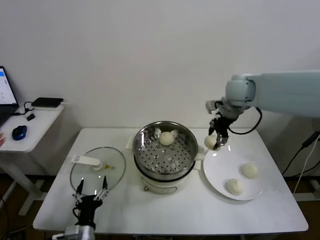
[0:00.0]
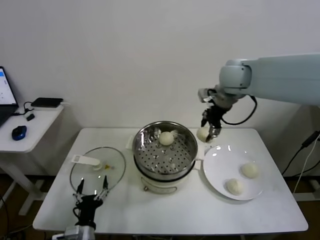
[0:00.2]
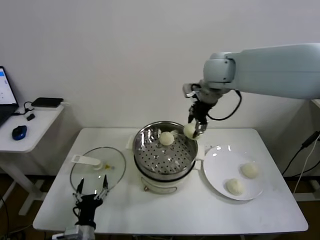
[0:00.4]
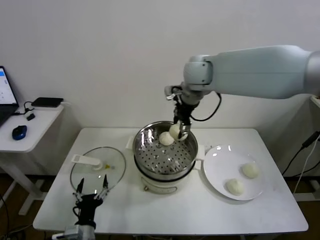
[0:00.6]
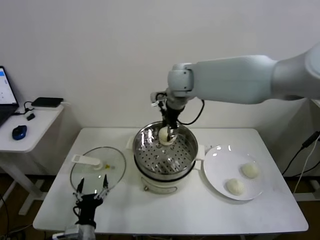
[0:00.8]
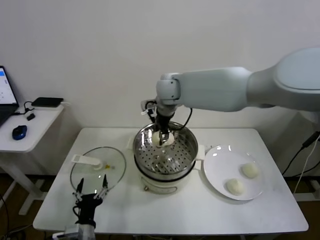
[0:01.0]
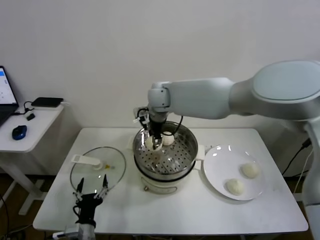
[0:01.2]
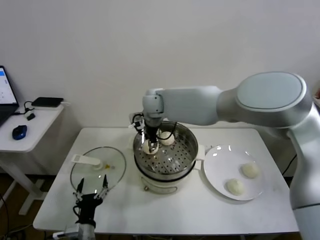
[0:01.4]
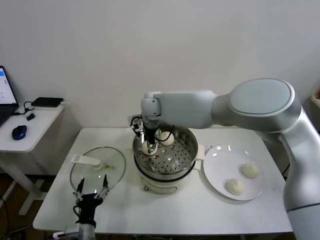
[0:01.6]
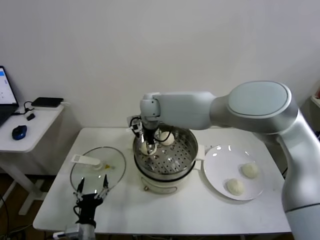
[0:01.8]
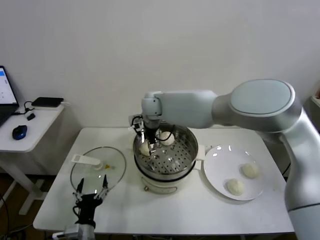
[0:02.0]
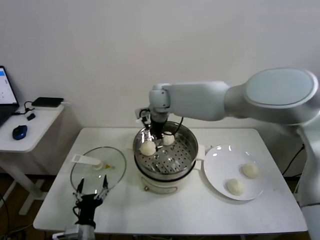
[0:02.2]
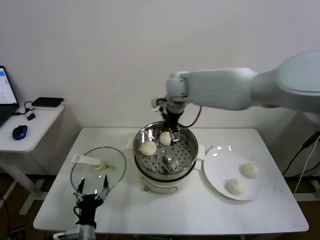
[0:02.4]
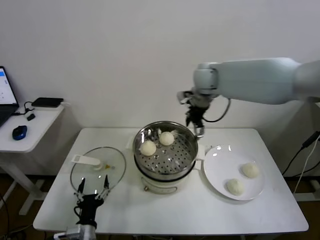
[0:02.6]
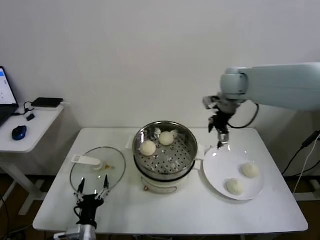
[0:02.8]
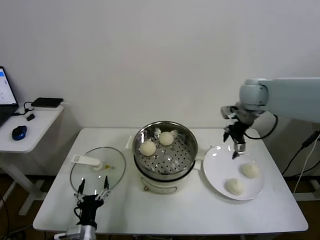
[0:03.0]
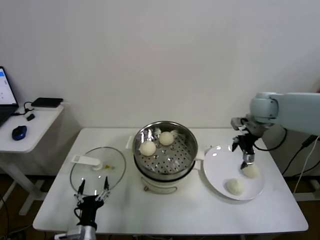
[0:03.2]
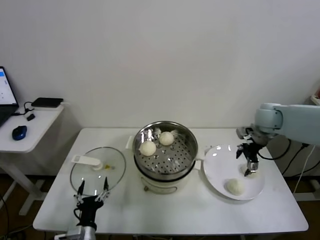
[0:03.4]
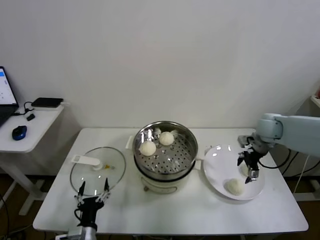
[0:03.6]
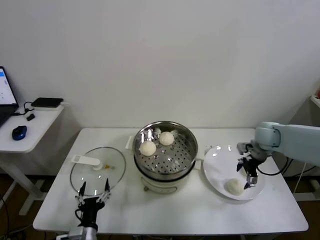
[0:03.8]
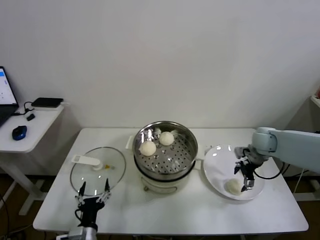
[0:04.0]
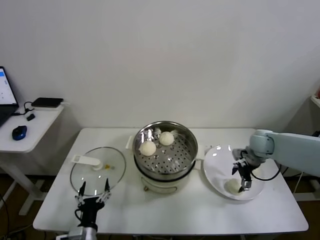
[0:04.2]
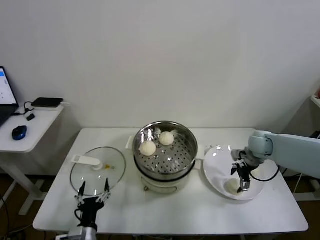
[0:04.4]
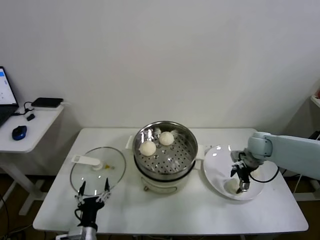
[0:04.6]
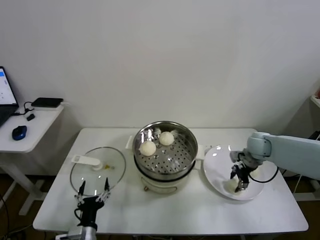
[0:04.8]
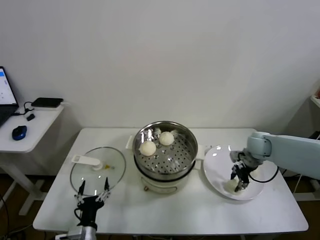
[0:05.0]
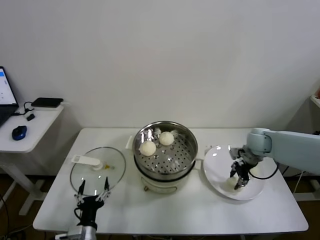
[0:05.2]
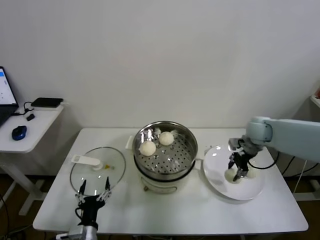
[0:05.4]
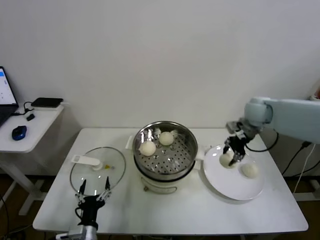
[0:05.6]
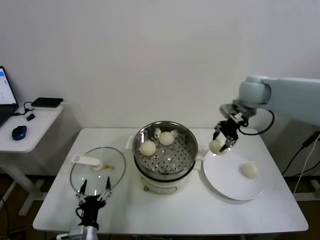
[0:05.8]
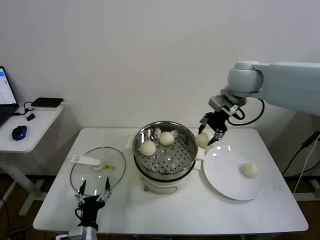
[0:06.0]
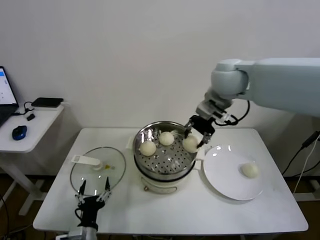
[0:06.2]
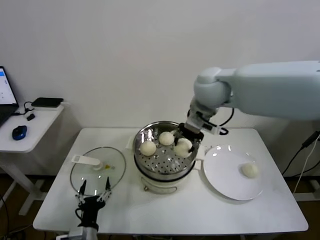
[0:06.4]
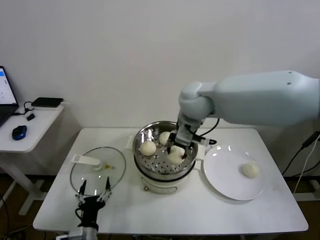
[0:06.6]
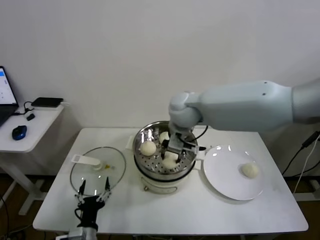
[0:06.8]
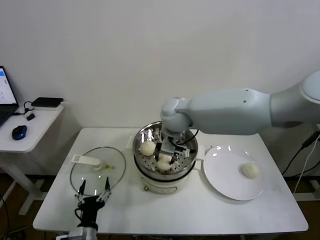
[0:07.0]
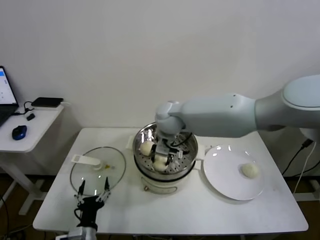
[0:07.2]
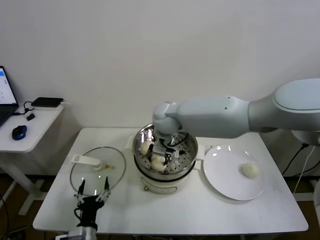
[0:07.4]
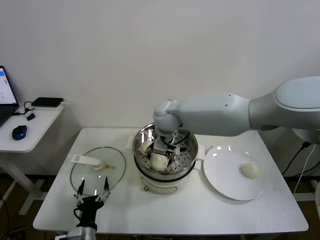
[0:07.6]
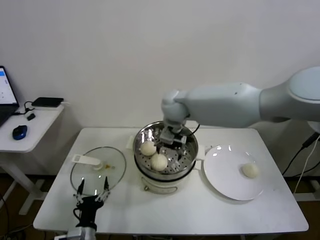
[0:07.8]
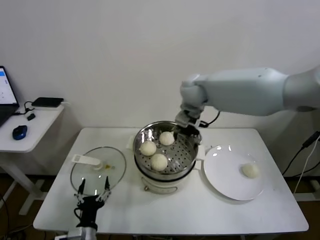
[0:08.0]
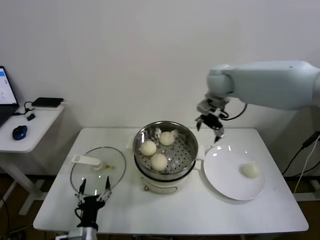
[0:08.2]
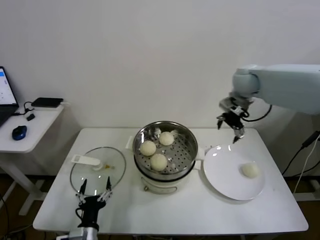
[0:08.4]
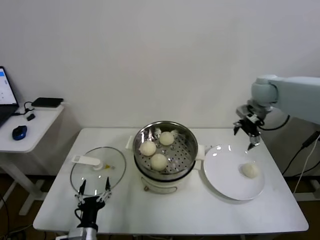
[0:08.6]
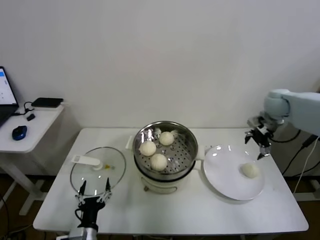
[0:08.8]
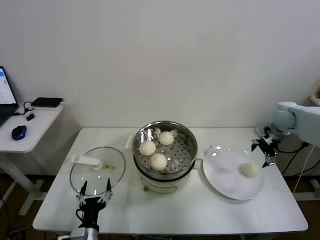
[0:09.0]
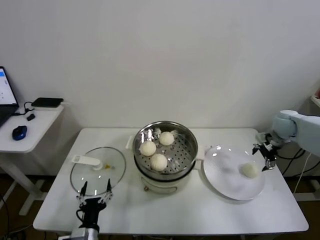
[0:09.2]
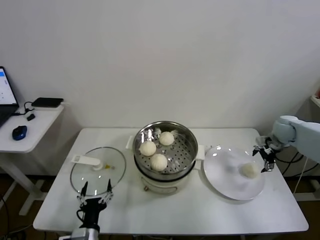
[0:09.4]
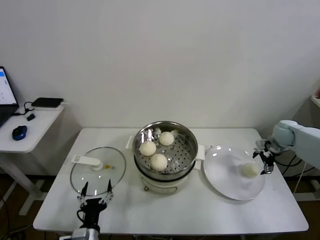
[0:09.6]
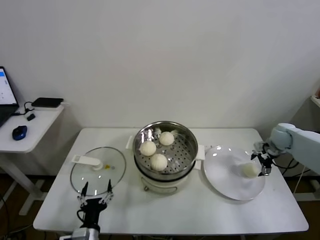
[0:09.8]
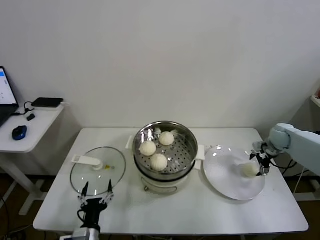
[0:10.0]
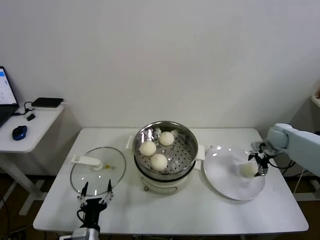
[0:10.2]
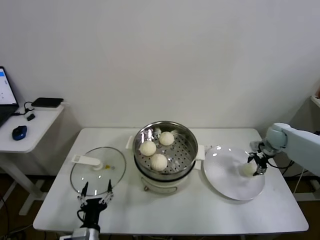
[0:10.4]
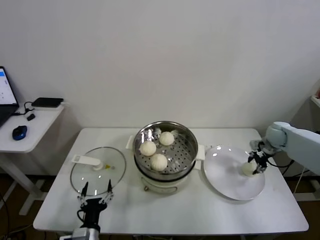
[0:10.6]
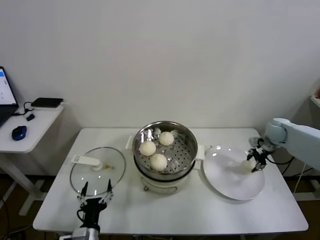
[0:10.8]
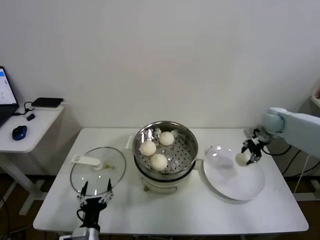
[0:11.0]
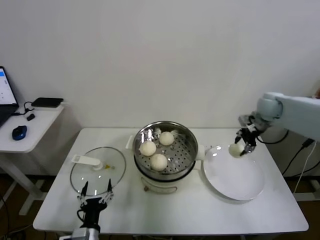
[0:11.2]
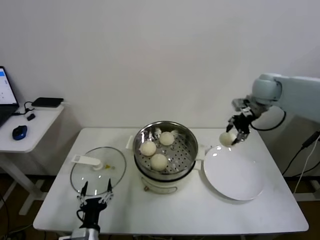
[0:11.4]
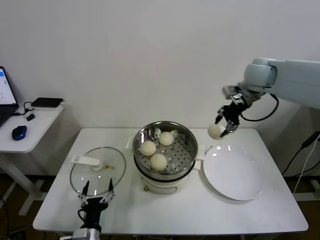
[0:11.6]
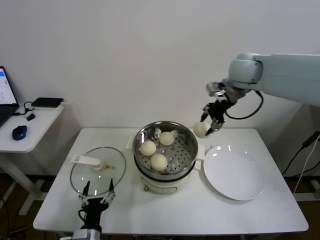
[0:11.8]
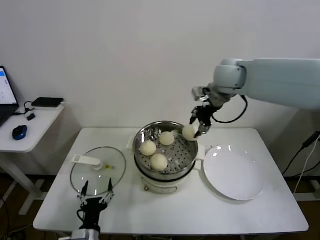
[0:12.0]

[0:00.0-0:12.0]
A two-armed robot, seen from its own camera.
Task of the whole recording: take steamed baozi put them in steamer.
Step, 0:00.0 to 0:02.0: Place the baozi on the steamer with right gripper.
Step, 0:02.2 to 0:05.0: Grasp the baozi in the plate with right gripper.
Step, 0:05.2 to 0:07.6: Place the baozi on the steamer with right gripper.
Step, 0:07.8 to 0:10.4: Grasp the baozi in the plate with right gripper.
0:00.0 to 0:01.6: The right gripper heads to the left, covering approximately 25 cm.
0:01.6 to 0:03.0: The right gripper is displaced to the right by about 35 cm, and opens its fingers.
0:03.0 to 0:04.4: The right gripper heads downward, covering roughly 20 cm.
0:04.4 to 0:06.0: The right gripper is displaced upward and to the left by roughly 30 cm, and closes up.
0:06.0 to 0:07.6: The right gripper is displaced to the left and downward by some 25 cm, and opens.
0:07.6 to 0:09.0: The right gripper is displaced to the right by approximately 40 cm.
0:09.0 to 0:10.4: The right gripper moves downward, about 10 cm, and closes.
0:10.4 to 0:12.0: The right gripper moves upward and to the left, roughly 35 cm, and closes its fingers.

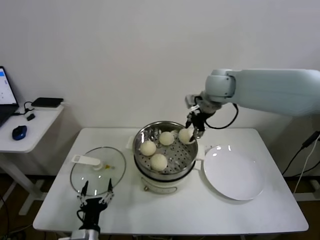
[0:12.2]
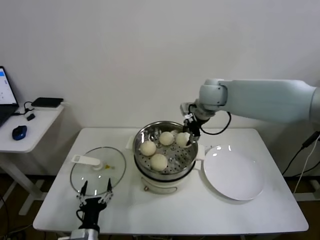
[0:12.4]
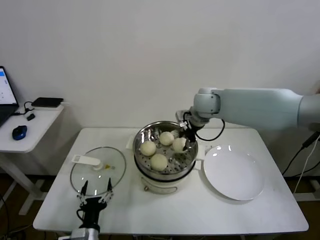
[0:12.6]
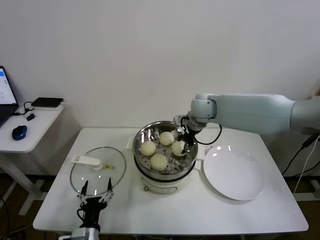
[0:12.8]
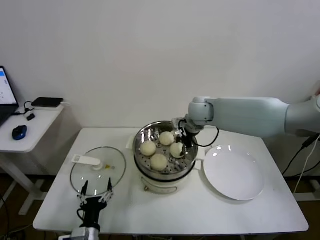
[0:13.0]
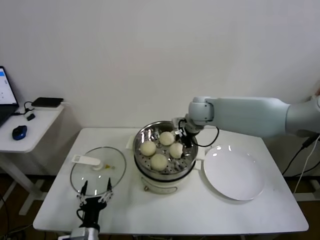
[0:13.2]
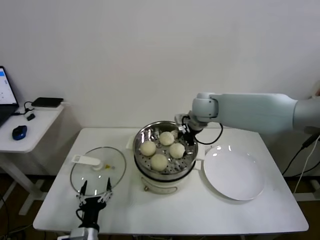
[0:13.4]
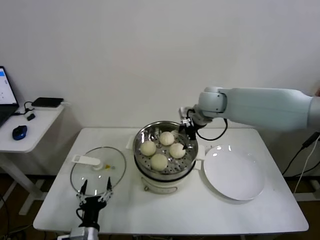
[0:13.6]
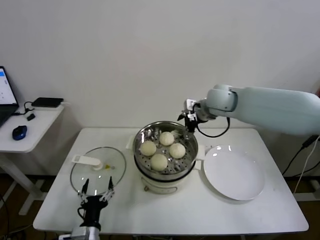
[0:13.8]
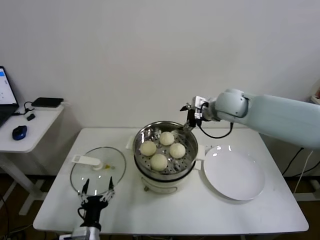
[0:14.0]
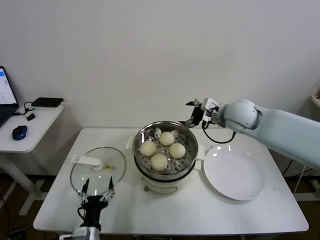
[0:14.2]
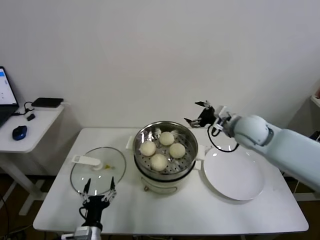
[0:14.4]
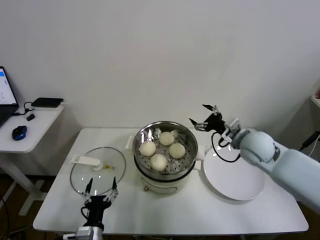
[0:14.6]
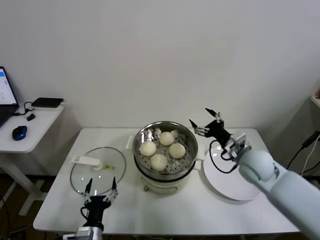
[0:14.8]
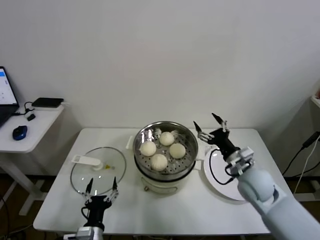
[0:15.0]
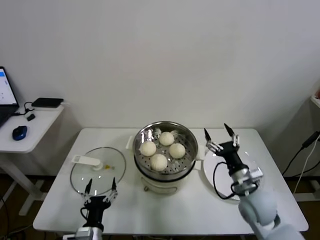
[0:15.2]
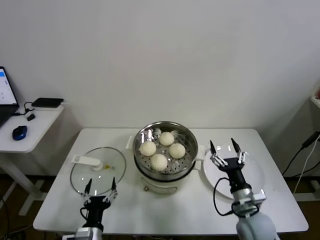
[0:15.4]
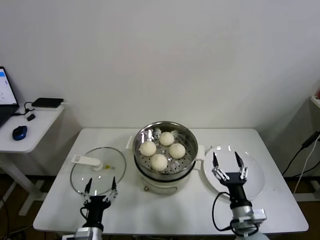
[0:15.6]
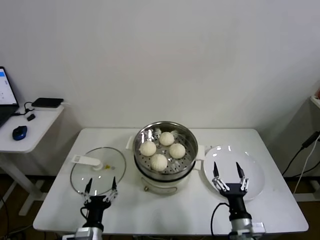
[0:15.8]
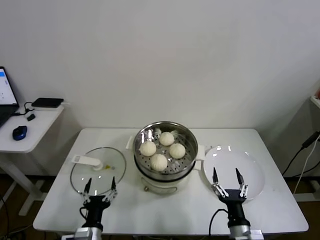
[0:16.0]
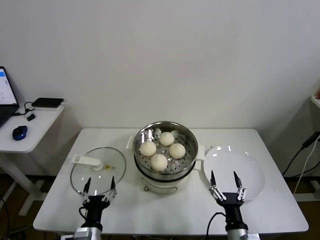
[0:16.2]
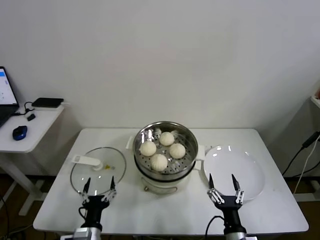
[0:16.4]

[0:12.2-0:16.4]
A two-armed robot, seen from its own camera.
Task of the whole recording: take steamed baozi put them in steamer.
0:12.2 to 0:13.6: The right gripper shifts approximately 5 cm downward, and opens.
0:13.6 to 0:15.0: The right gripper goes approximately 25 cm backward, downward and to the right.
0:15.0 to 0:16.4: The right gripper moves backward and downward, roughly 25 cm.

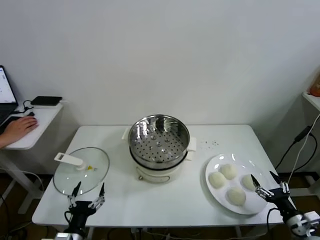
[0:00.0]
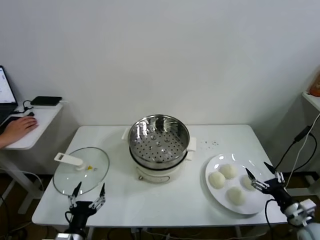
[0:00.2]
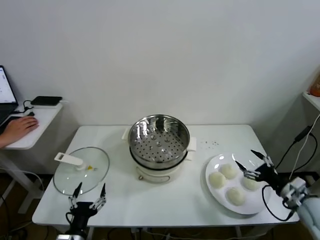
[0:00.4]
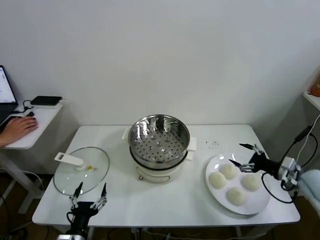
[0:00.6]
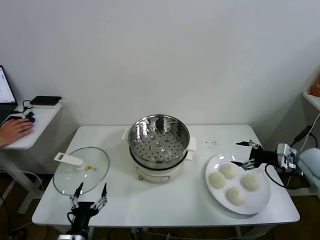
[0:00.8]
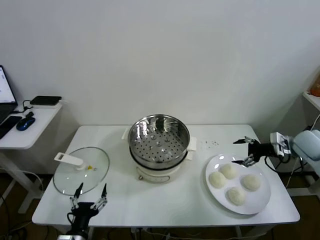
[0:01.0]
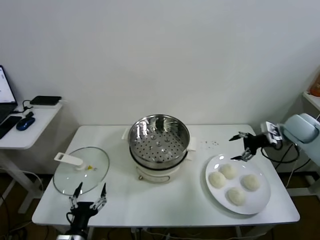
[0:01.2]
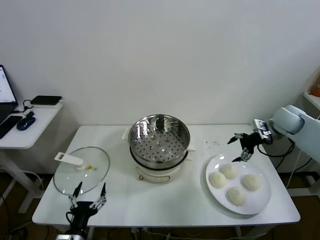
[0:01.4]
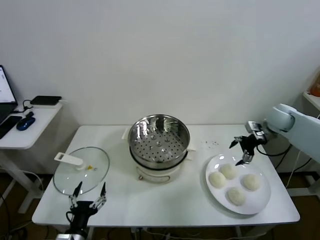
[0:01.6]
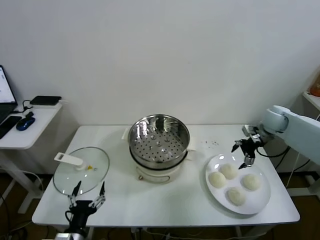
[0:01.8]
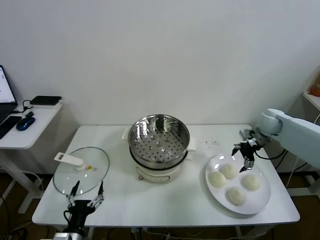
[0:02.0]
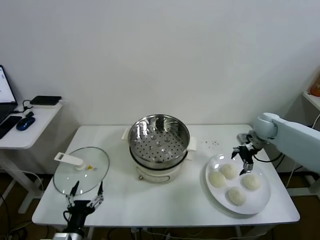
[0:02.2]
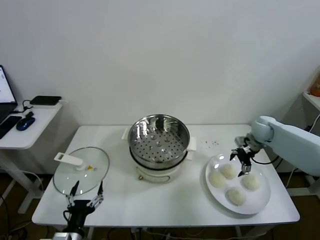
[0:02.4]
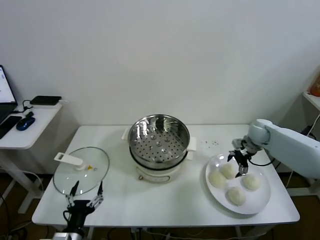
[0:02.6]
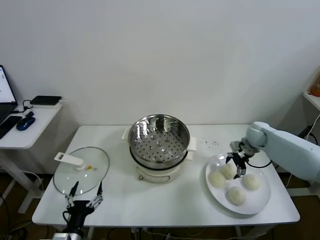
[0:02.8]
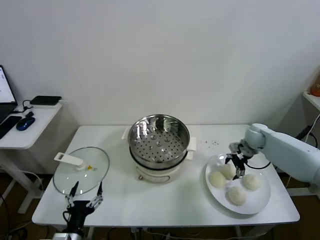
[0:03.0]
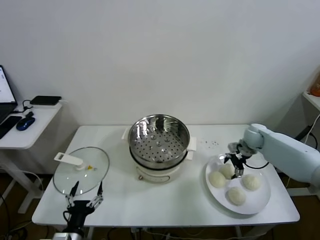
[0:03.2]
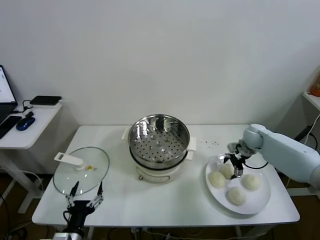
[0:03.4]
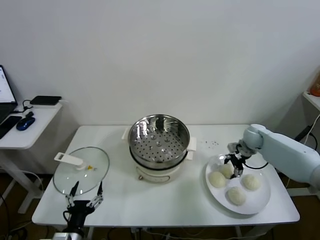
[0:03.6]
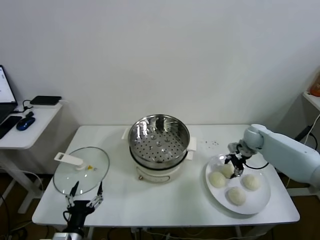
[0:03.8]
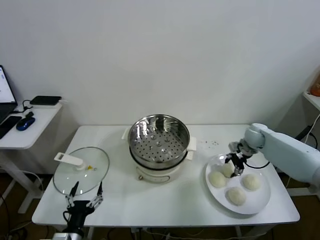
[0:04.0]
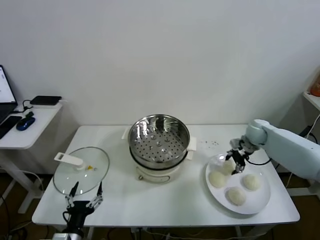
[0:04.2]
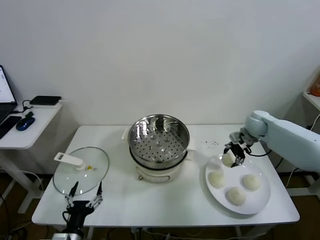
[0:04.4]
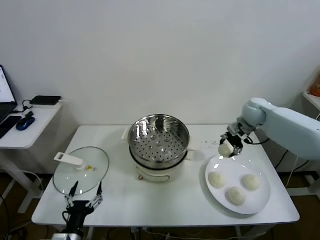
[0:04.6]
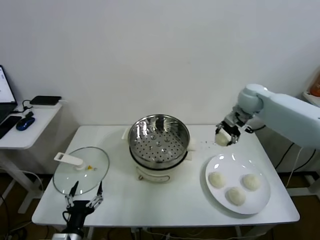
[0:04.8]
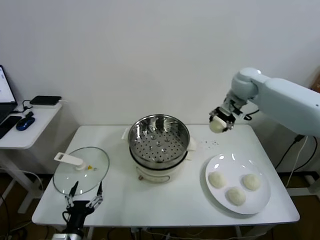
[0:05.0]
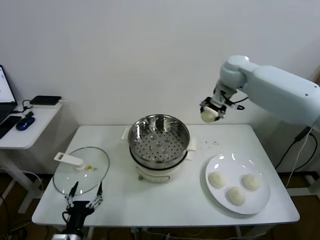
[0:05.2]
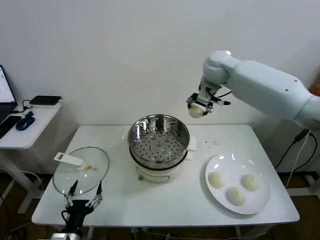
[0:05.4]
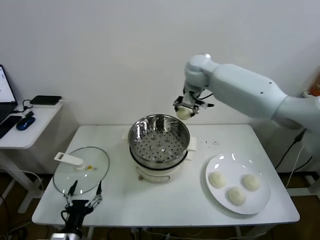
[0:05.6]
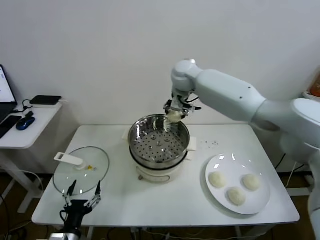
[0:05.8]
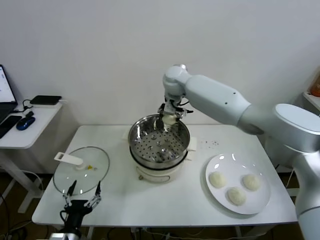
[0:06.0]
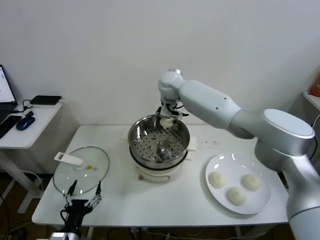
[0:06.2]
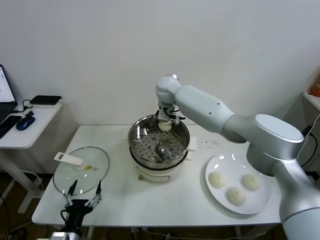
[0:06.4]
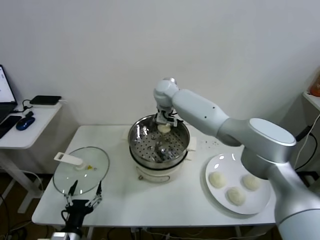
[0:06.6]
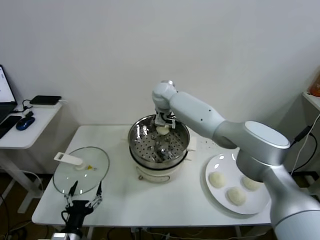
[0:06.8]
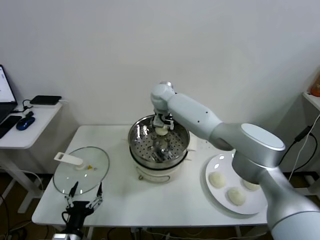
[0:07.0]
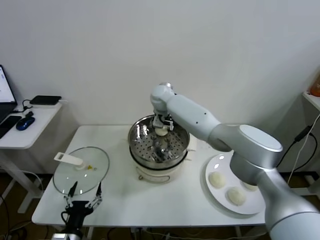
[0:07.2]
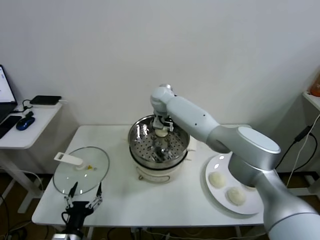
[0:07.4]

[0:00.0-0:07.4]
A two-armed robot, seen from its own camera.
Task of the whole recording: take steamed baozi put them in steamer.
Step, 0:00.0 to 0:03.8: Grasp the baozi in the plate with right gripper.
0:01.4 to 0:03.0: The right gripper shifts some 15 cm downward and to the left.
0:03.0 to 0:04.4: The right gripper is displaced upward by about 5 cm, and closes its fingers.
0:04.4 to 0:06.0: The right gripper goes some 35 cm to the left and upward.
0:06.0 to 0:07.4: The right gripper goes roughly 10 cm downward.
